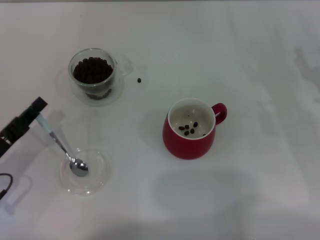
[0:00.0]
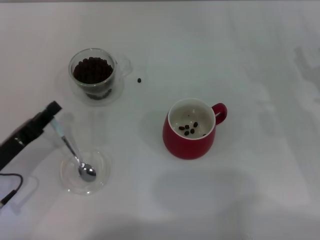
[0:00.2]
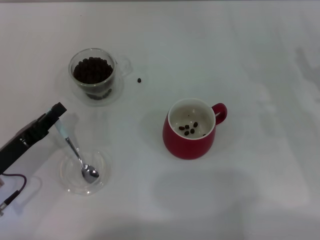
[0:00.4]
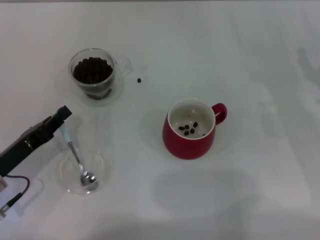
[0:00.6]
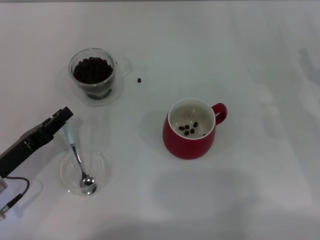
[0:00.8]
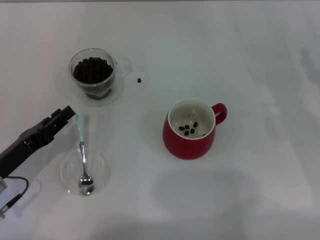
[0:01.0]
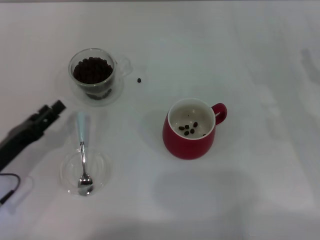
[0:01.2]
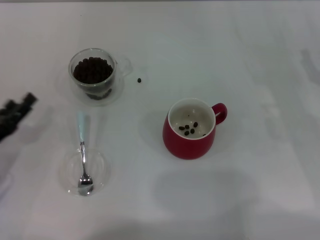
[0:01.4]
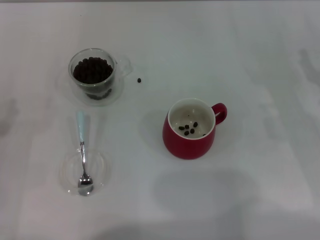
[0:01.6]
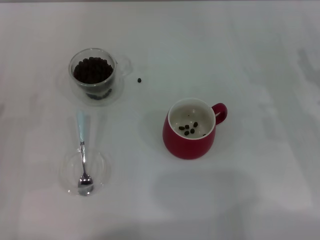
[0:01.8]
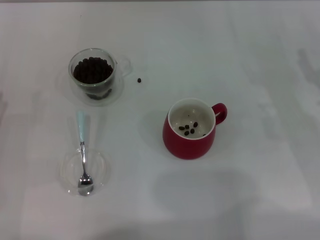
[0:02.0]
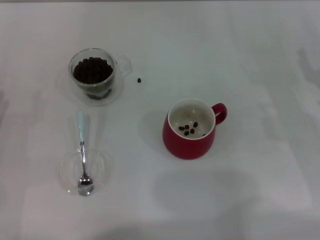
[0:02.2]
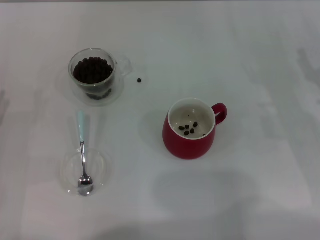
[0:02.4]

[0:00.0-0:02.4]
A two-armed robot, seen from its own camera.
Task of the whole recording: Use a blue spoon to take out the coffee beans from the glass and pour them into the red cup.
0:00.0 to 0:01.2: The left gripper opens up.
0:01.2 to 0:02.4: The left gripper opens up.

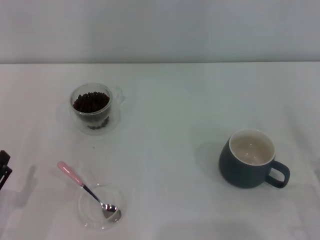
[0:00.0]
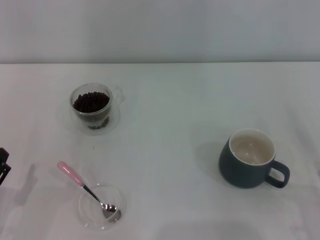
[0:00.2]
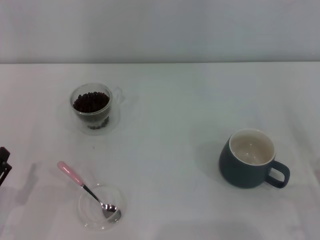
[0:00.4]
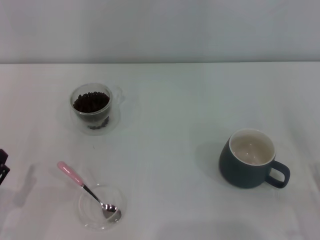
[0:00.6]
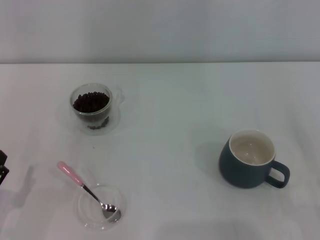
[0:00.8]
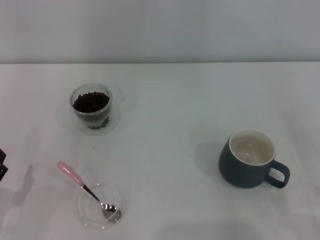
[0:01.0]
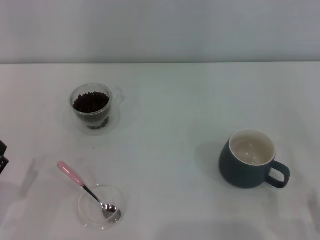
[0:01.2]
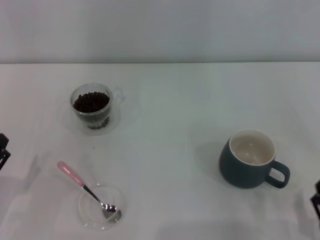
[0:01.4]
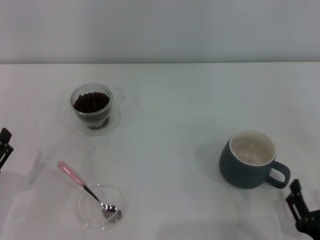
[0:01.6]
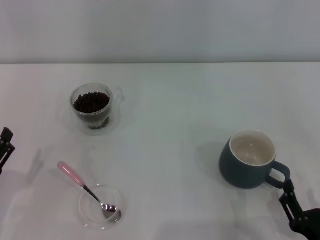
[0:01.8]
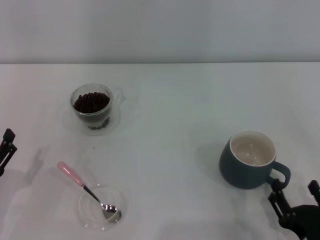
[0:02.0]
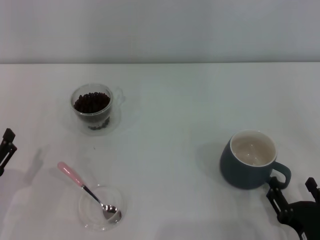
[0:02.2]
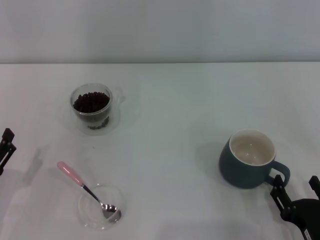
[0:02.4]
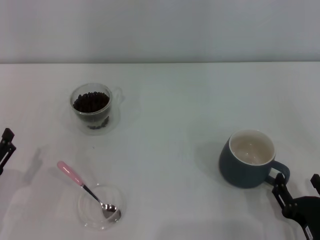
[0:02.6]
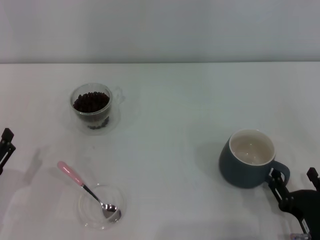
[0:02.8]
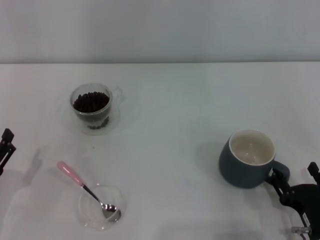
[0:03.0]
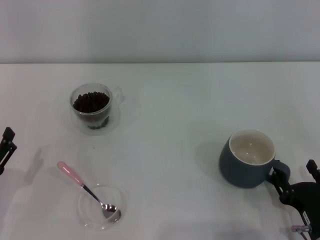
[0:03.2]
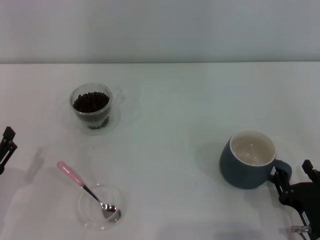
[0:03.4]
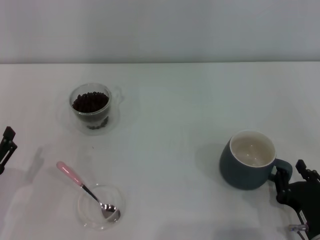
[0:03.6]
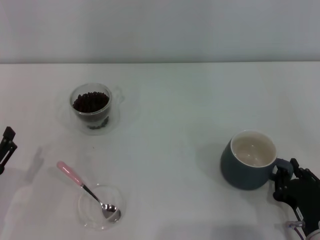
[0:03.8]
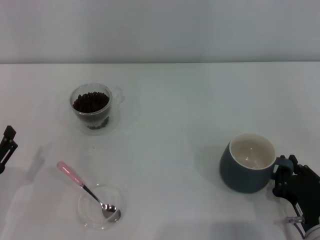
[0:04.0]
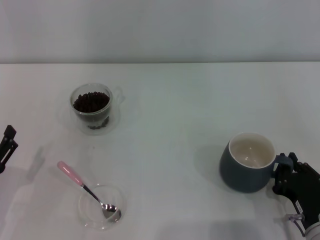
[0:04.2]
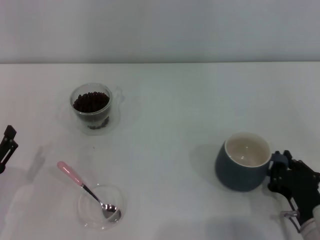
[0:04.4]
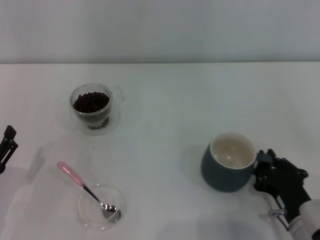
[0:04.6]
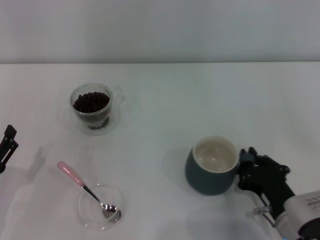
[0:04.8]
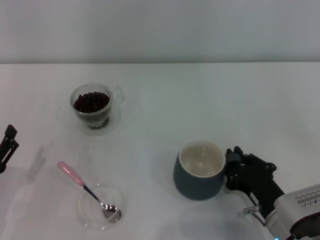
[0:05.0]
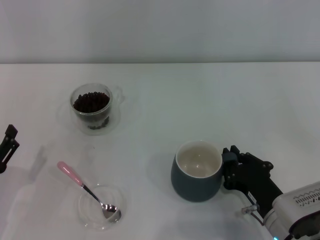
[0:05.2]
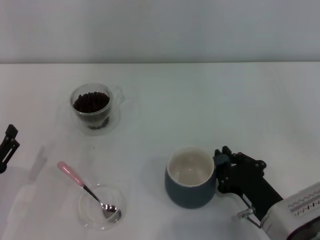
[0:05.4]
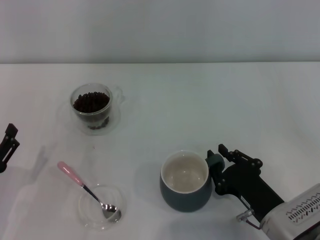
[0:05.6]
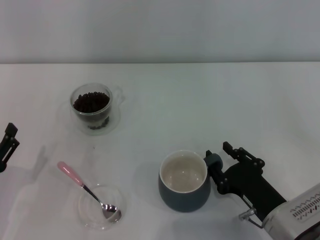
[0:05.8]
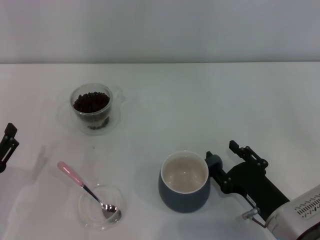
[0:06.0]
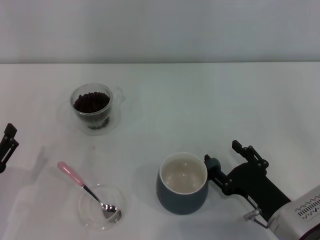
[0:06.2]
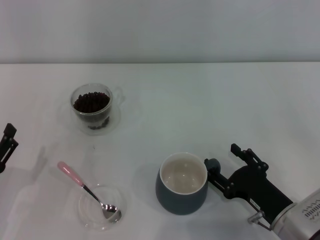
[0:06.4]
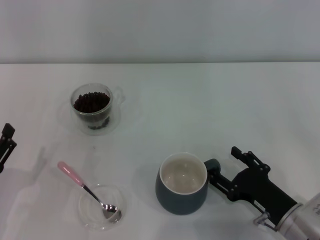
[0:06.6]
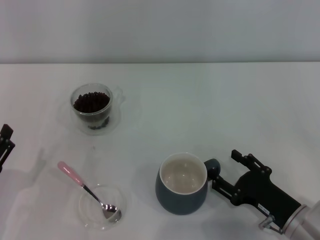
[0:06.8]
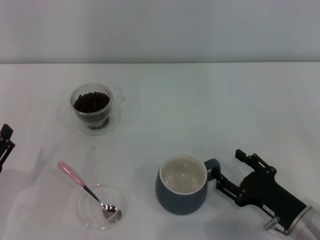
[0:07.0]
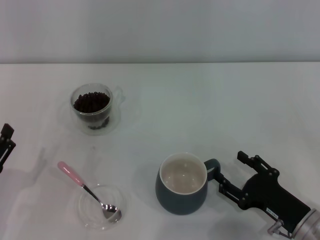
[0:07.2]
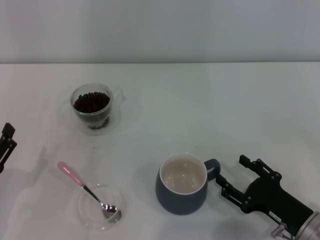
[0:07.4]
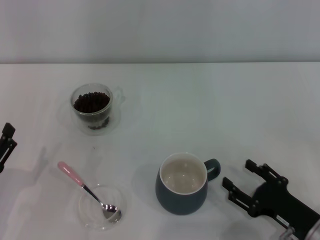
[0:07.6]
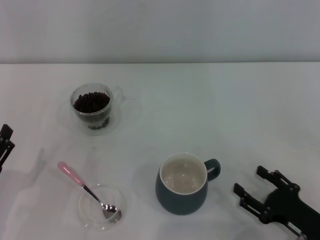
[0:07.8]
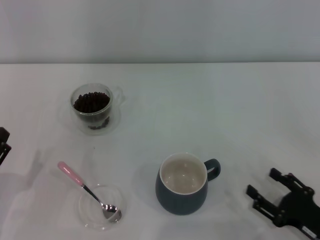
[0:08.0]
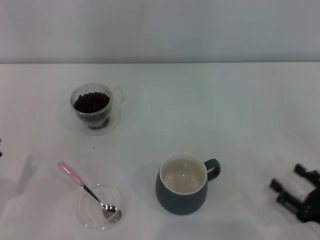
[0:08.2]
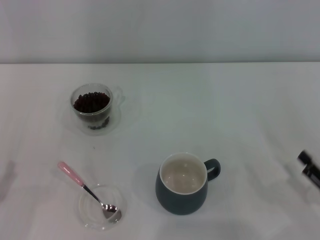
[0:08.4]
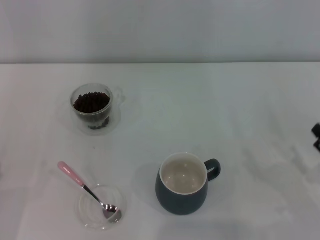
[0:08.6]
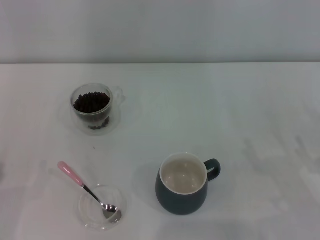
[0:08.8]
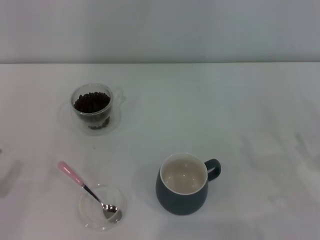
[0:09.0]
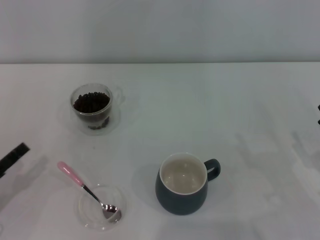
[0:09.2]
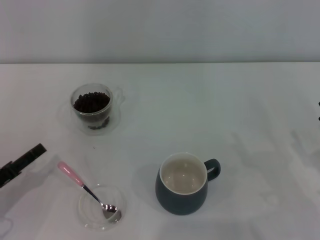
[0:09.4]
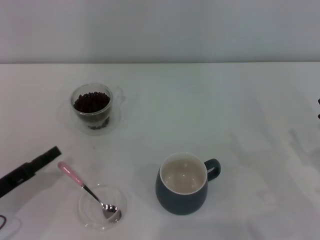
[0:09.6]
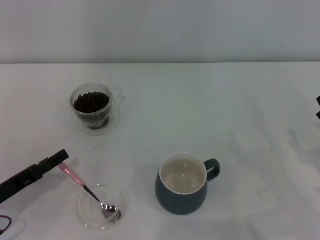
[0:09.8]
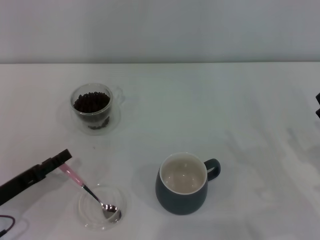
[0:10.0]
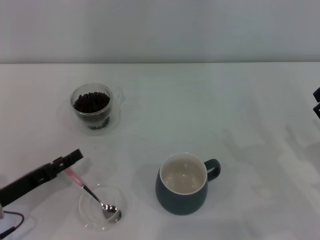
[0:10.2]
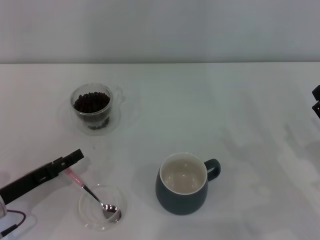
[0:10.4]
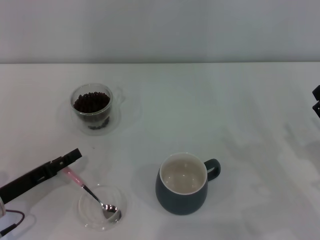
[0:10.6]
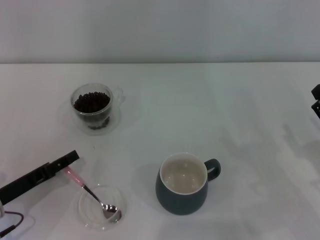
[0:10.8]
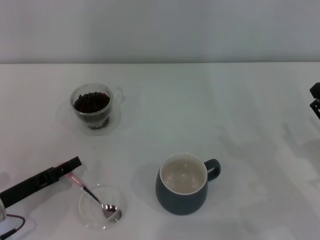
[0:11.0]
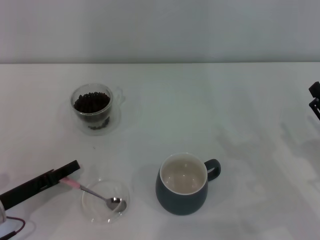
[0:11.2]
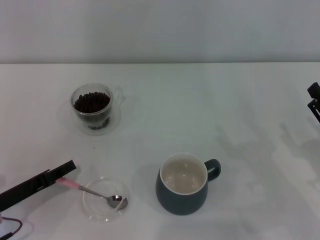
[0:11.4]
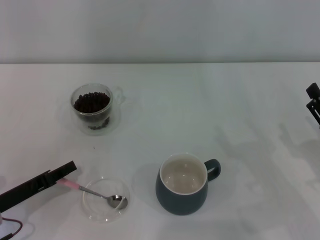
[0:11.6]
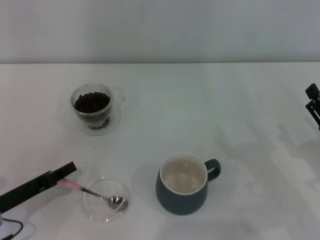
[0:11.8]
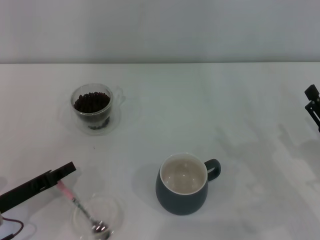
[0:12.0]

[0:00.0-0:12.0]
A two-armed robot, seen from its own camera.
Task of the whole recording: Use a pink spoon to take out the coffee beans from the glass and pour them into the gray cup.
Step, 0:00.0 to 0:07.6: Move the cup to the center of view with the left gripper.
0:00.0 to 0:01.6: The right gripper is displaced to the left by some 10 cm.
0:01.6 to 0:03.0: The right gripper goes approximately 5 cm forward.
0:03.0 to 0:04.4: The right gripper closes its fingers.
0:04.4 to 0:06.0: The right gripper opens up.
0:06.0 to 0:07.6: The right gripper moves to the right, about 5 cm, and opens.
0:07.6 to 0:09.0: The left gripper travels to the left by approximately 5 cm, while the right gripper goes approximately 5 cm to the right.
0:09.0 to 0:10.4: The left gripper moves to the right and forward, about 10 cm.
0:10.4 to 0:12.0: The left gripper closes.

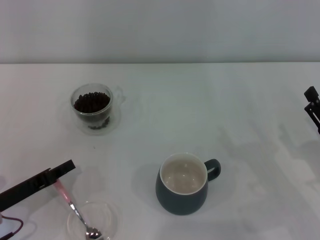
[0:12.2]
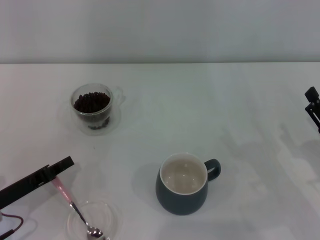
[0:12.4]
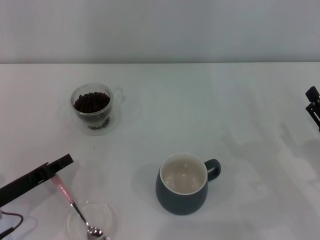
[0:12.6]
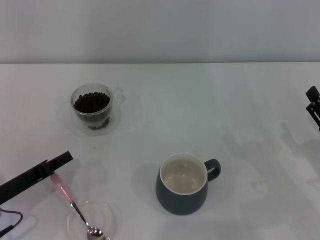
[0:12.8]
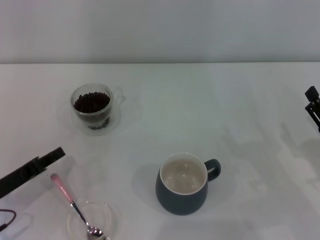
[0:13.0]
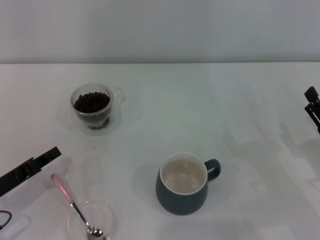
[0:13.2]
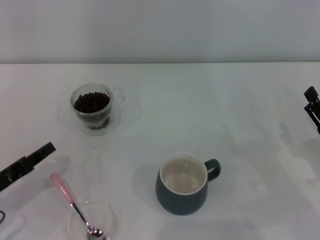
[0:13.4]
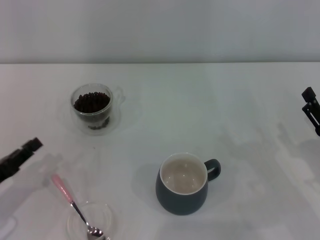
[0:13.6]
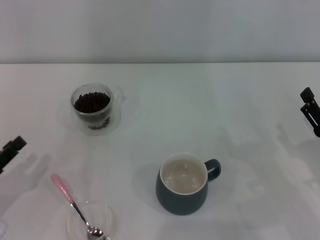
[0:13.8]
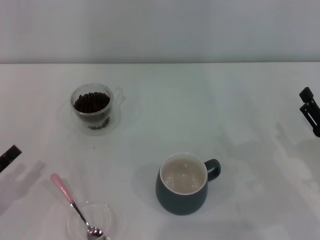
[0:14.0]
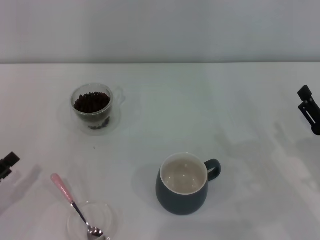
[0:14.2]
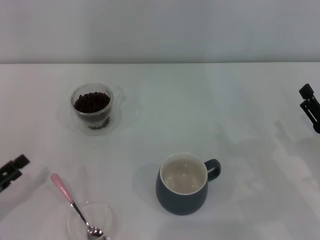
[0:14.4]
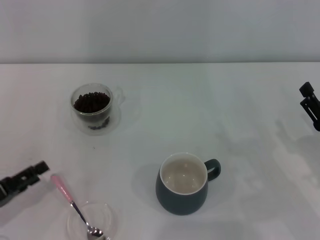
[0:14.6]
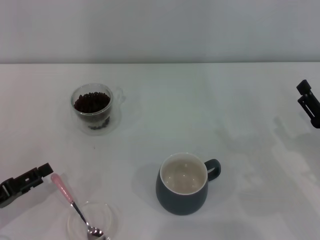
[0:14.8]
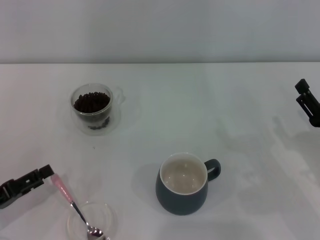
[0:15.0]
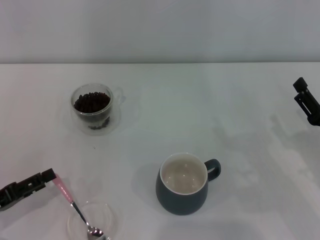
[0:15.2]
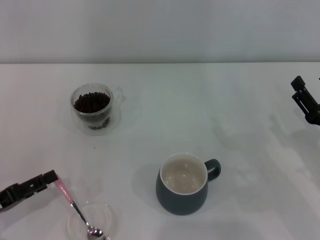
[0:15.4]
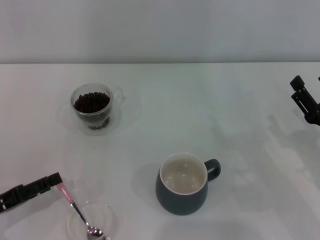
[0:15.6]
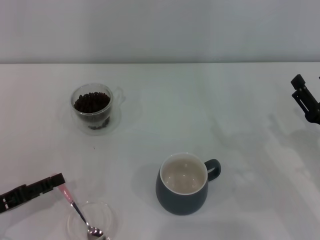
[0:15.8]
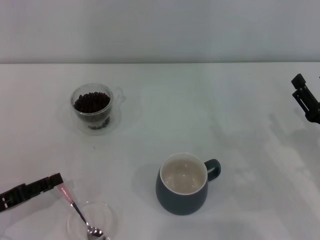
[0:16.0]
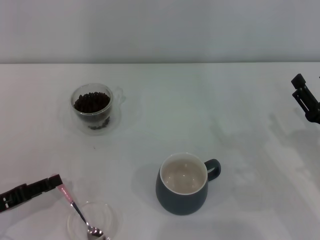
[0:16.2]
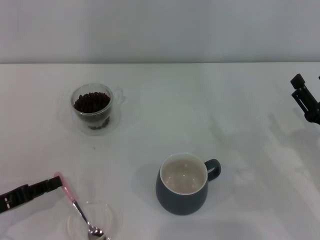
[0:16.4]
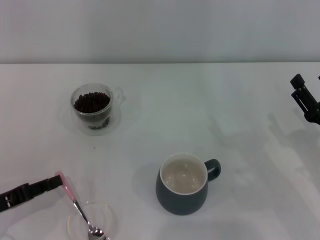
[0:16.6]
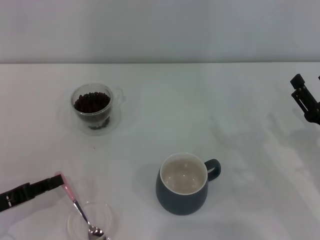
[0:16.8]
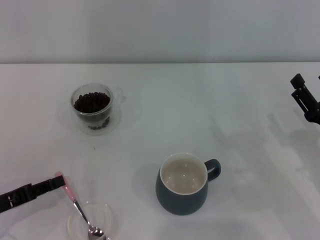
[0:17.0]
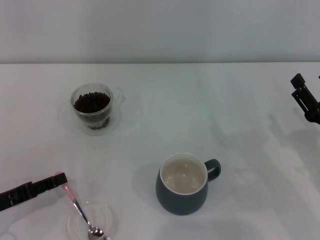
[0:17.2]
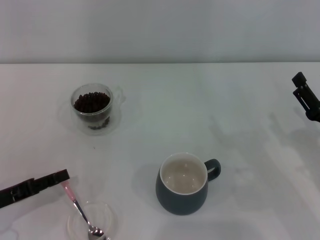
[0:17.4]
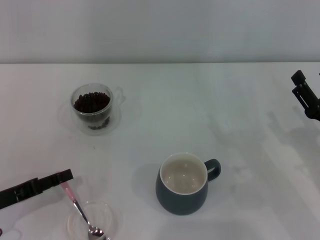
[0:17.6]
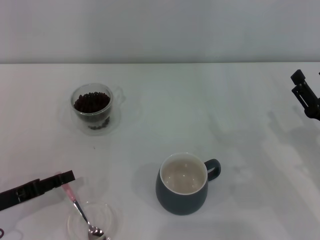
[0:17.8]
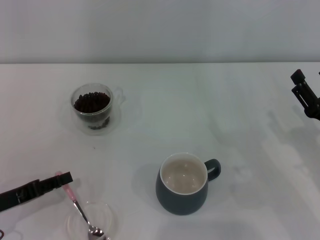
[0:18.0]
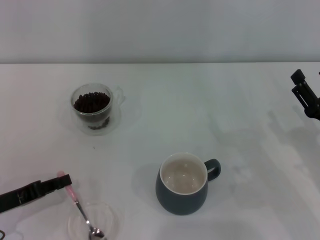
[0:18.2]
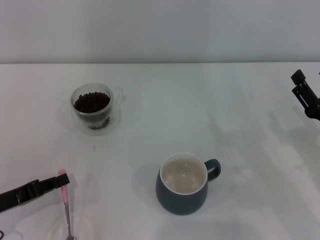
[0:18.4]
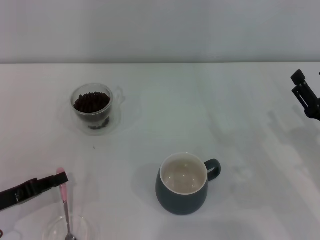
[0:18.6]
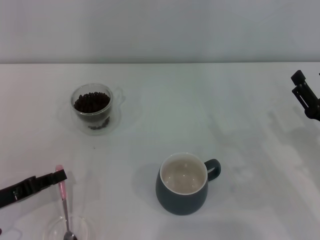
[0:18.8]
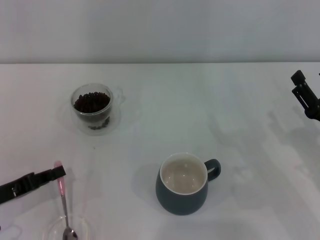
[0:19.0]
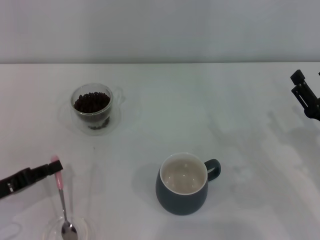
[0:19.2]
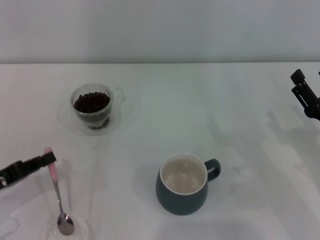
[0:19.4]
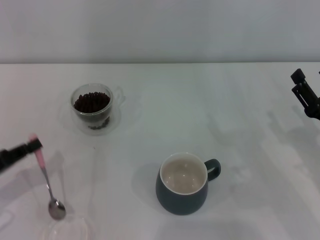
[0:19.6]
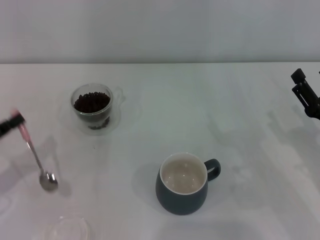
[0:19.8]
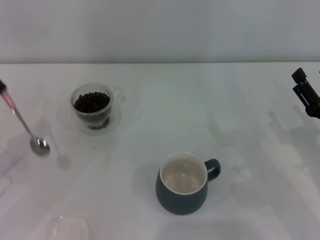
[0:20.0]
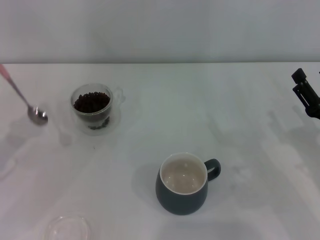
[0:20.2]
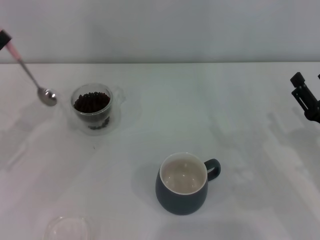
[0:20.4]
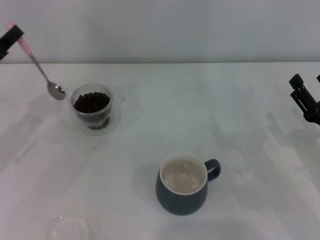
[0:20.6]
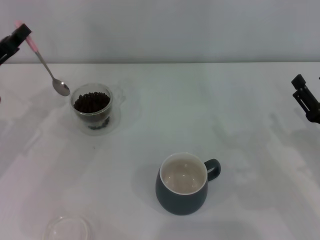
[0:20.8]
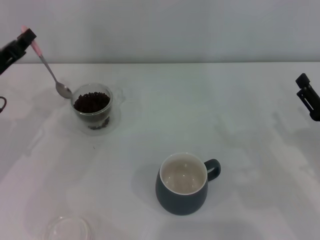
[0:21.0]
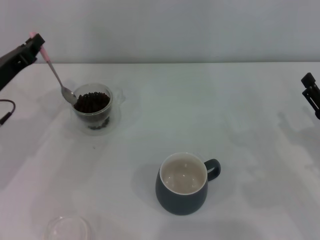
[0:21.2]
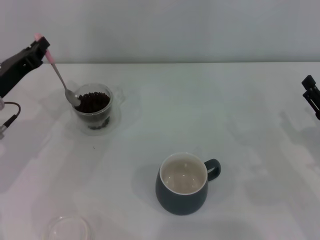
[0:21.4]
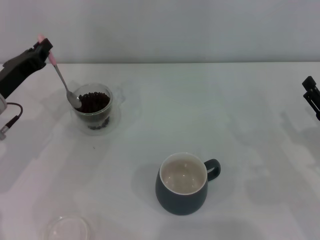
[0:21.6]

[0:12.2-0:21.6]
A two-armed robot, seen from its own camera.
Task of the whole recording: Use a pink spoon to take out the coffee beans from the glass and pour them into the gray cup.
Step, 0:12.2 to 0:19.6: Pick up the spoon with the right gripper.
0:12.2 to 0:13.8: The left gripper moves some 5 cm.
0:13.8 to 0:15.4: The left gripper opens up.
0:15.4 to 0:17.0: The left gripper closes up.
0:17.0 to 0:18.4: Both grippers stay put.
0:18.4 to 0:20.0: The left gripper moves upward, some 5 cm.
0:20.0 to 0:21.6: The left gripper goes some 15 cm forward and to the right.
